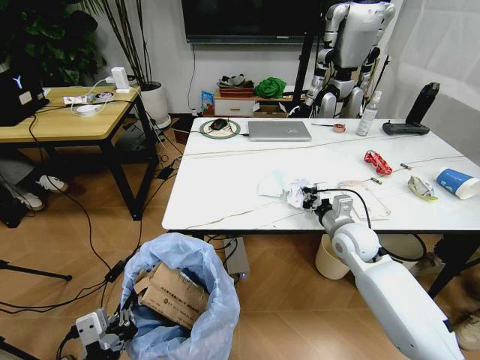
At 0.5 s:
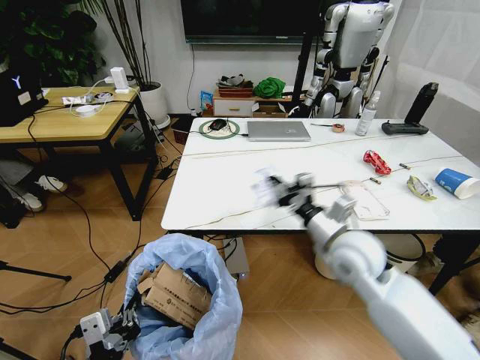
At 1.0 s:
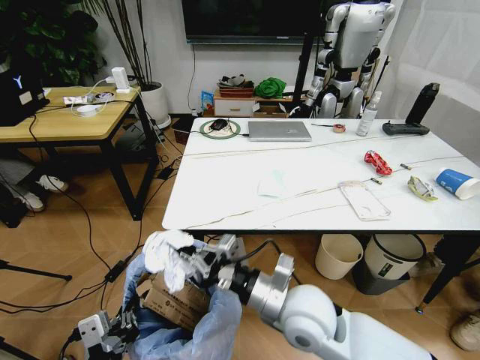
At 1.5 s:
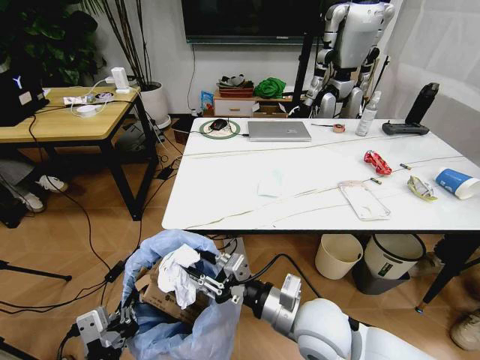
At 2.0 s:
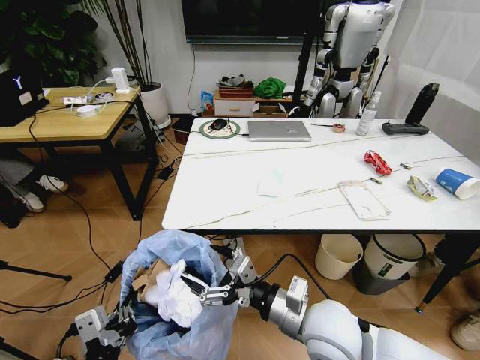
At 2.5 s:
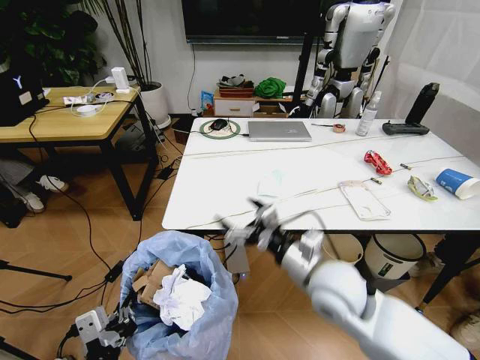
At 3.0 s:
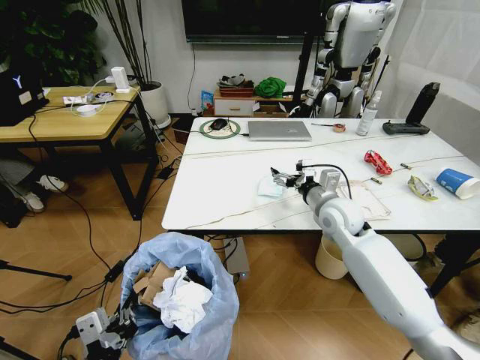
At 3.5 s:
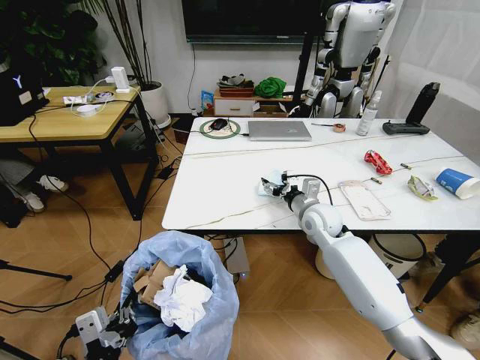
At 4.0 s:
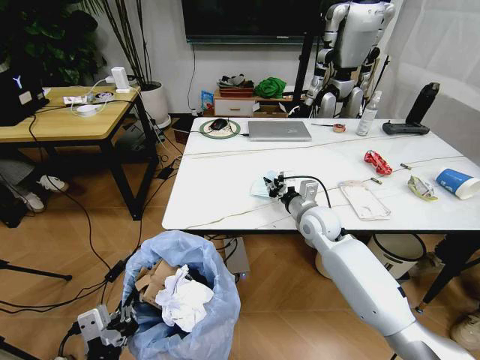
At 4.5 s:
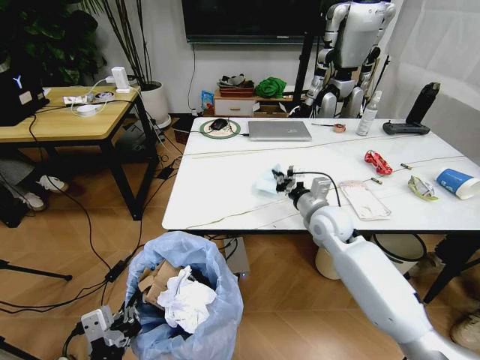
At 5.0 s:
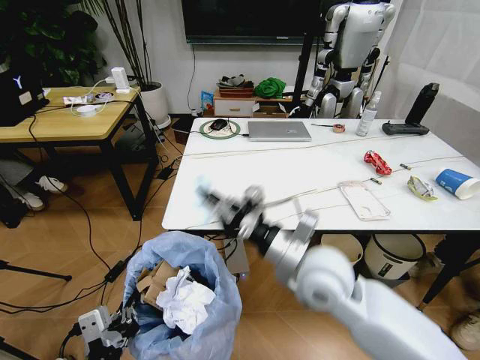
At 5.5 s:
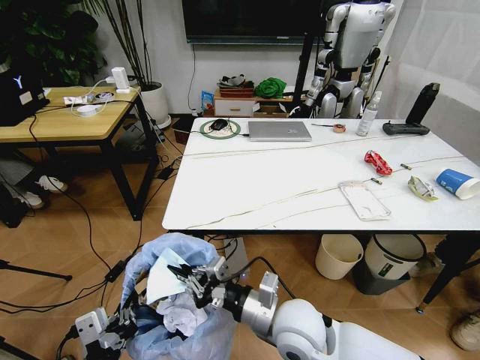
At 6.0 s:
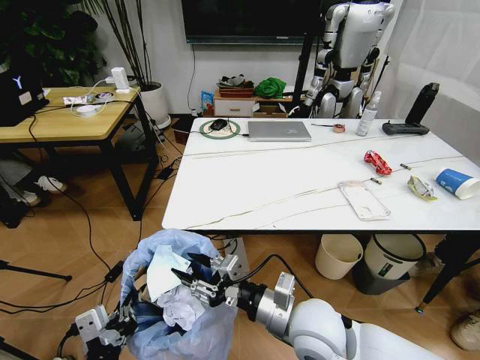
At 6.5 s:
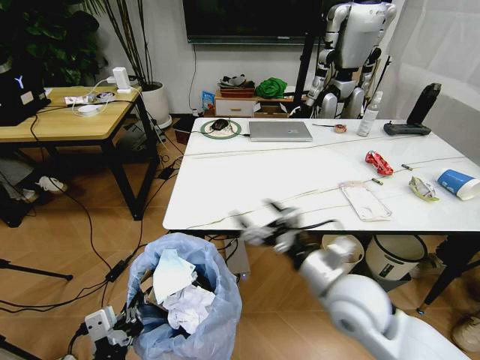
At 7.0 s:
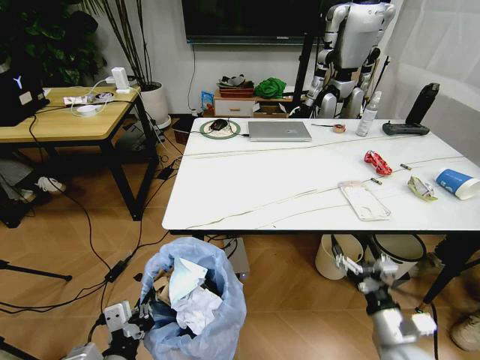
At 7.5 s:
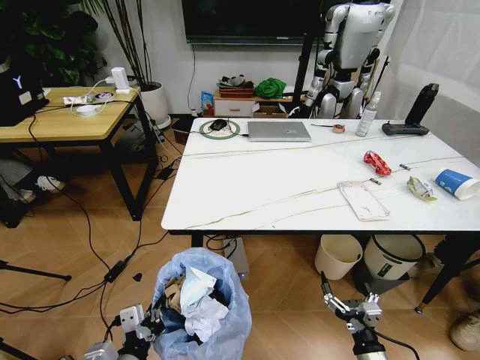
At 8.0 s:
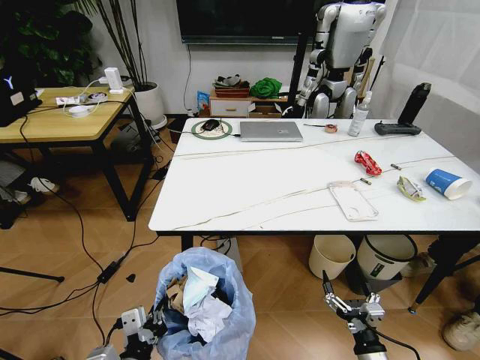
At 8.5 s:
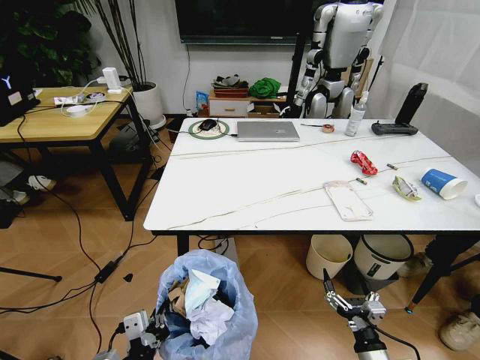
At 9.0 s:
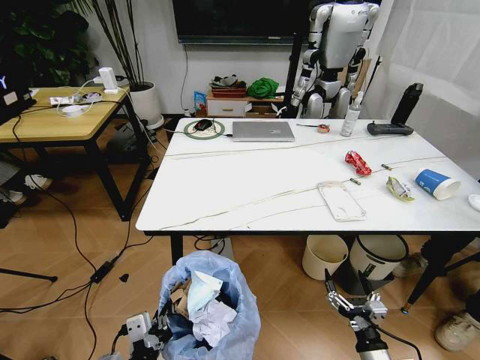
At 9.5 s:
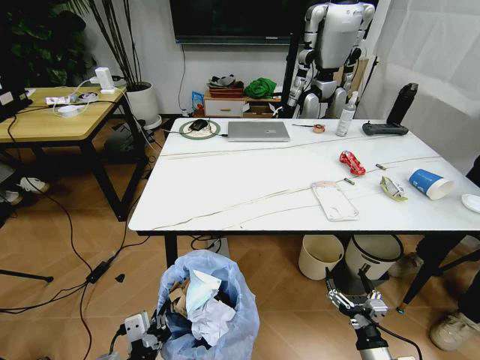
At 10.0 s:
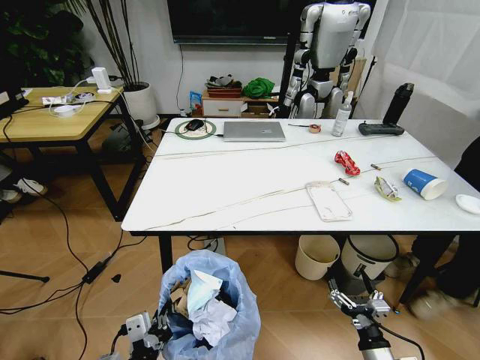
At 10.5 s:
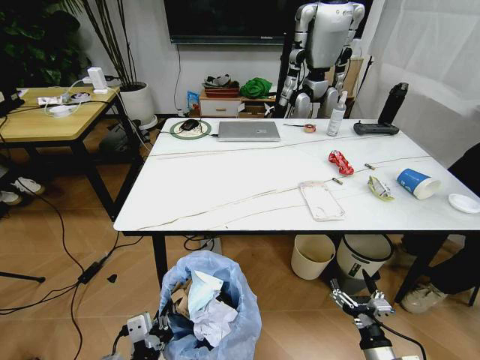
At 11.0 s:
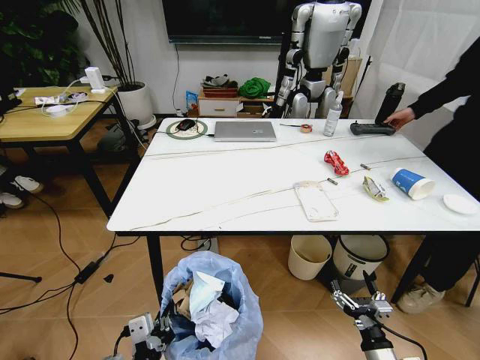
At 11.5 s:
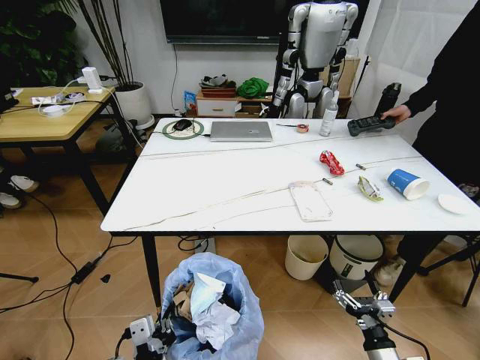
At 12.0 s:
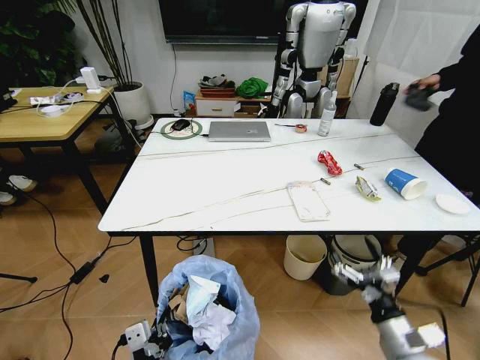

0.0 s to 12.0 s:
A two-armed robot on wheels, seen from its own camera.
Task of the whole recording: Pick up the trash bin and place the trash from the table into it.
0.0 to 2.0 s: The right gripper travels backward and to the left by some 25 cm, and opens up.
2.0 to 4.0 s: The right gripper goes some 25 cm forward, and closes its fingers.
4.0 to 6.0 s: The right gripper travels backward by roughly 25 cm.
6.0 to 8.0 s: The left gripper travels downward by roughly 10 cm. Meanwhile the right gripper moves downward, to the right and backward, approximately 25 cm, and opens up.
10.0 to 12.0 s: The right gripper moves upward, approximately 10 cm.

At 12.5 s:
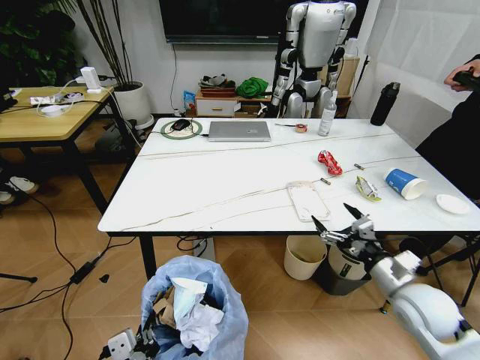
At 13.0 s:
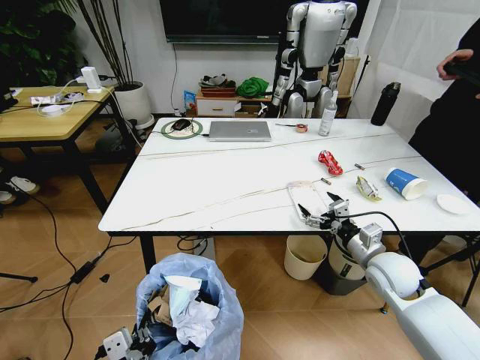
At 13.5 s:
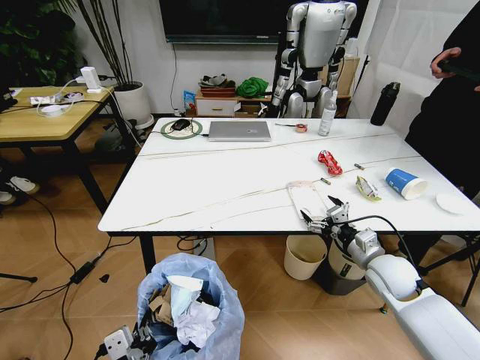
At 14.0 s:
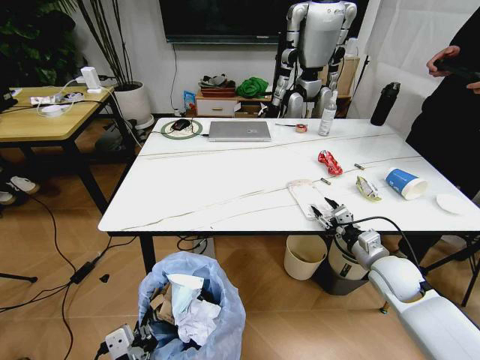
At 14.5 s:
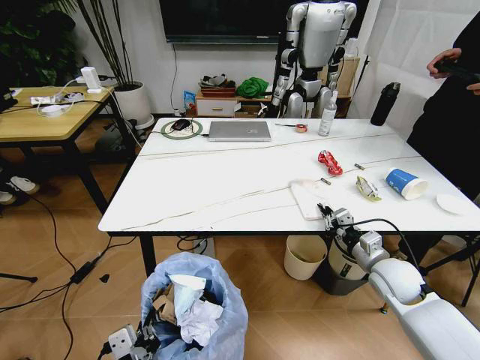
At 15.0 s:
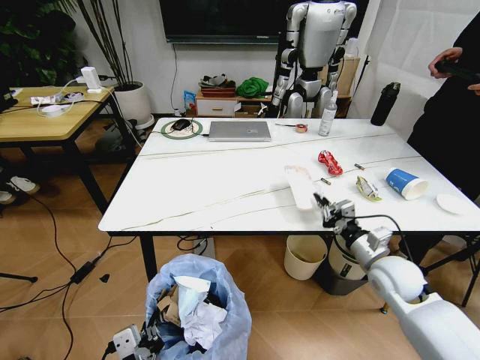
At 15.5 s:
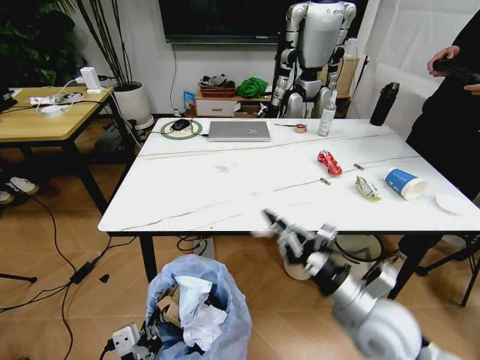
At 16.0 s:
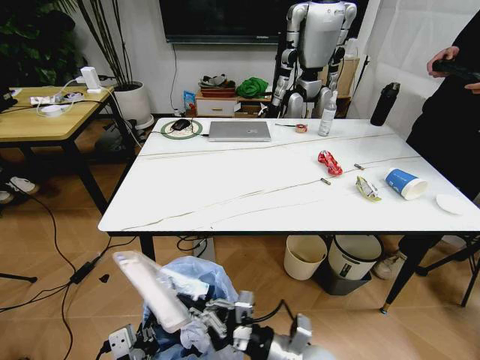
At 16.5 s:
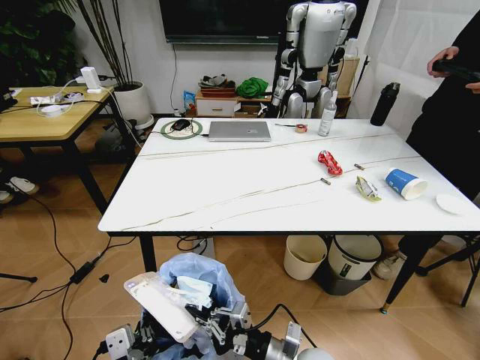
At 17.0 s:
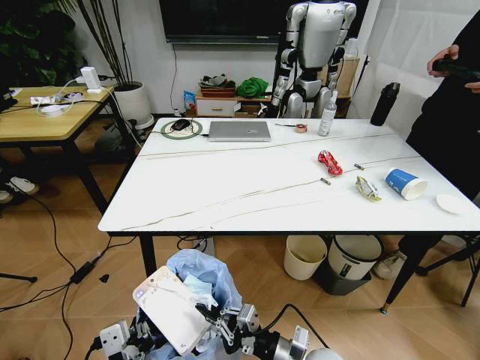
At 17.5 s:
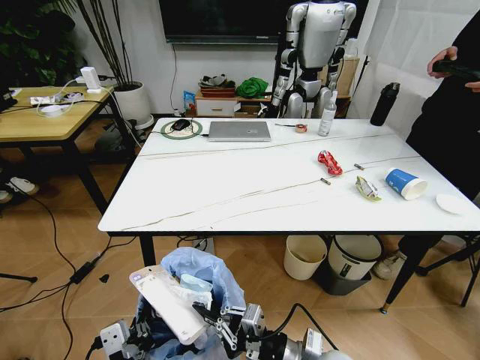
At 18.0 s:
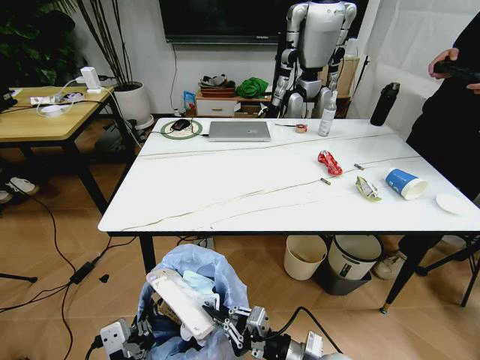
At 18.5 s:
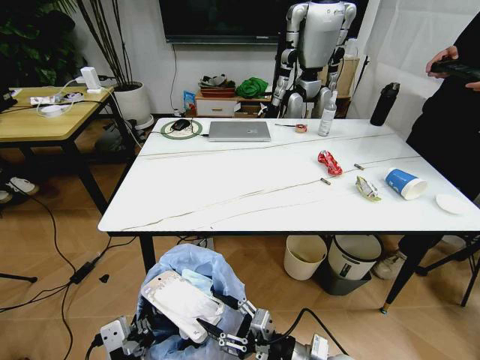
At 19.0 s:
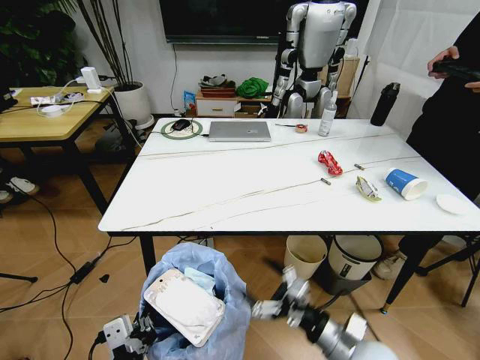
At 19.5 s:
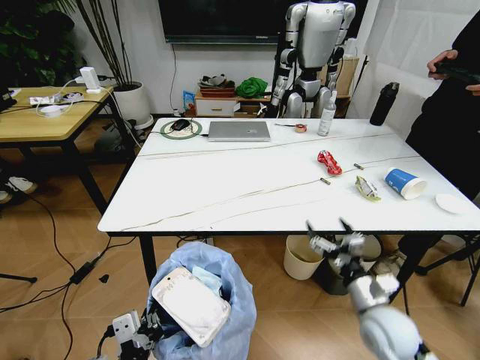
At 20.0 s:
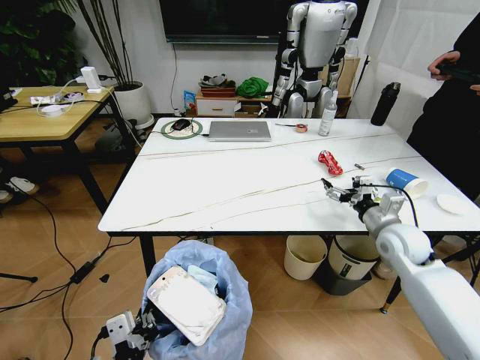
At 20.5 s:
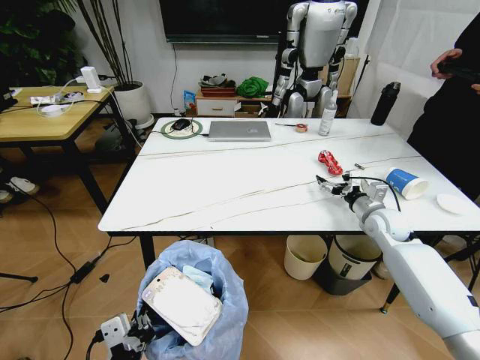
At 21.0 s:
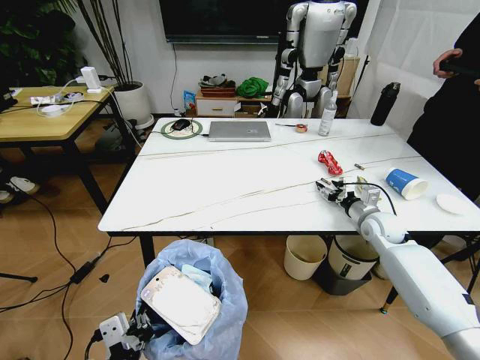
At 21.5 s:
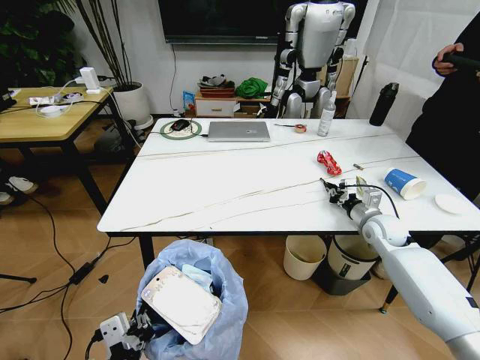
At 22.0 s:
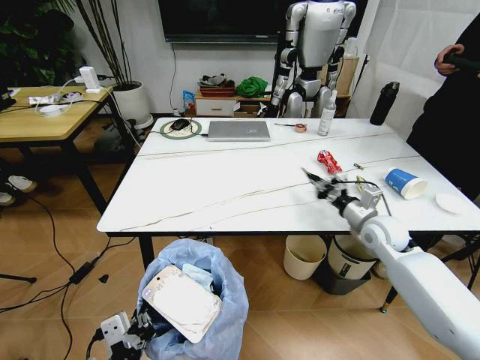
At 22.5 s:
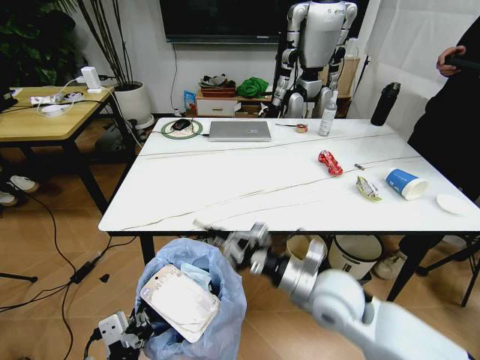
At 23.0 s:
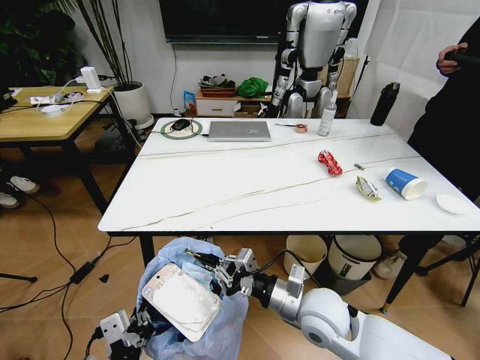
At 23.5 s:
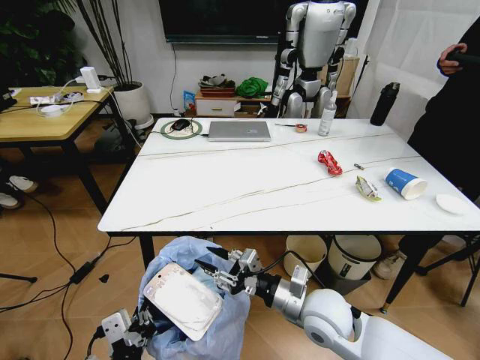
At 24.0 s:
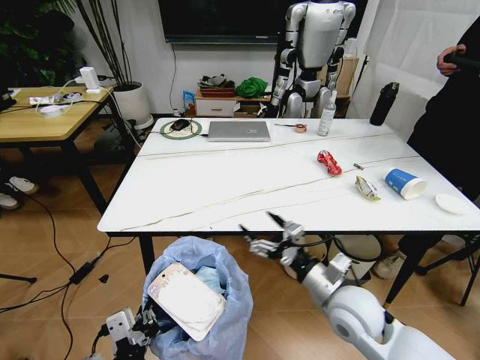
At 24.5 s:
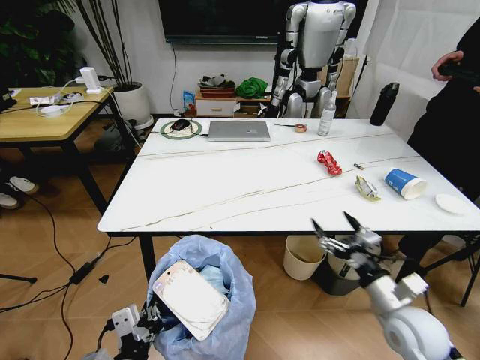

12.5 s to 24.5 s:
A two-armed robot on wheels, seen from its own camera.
Task of the whole recording: Pick up the trash bin and place the trash from the table into it.
12.5 to 14.5 s: The right gripper moves forward, approximately 10 cm, and closes its fingers.
14.5 to 16.5 s: The right gripper travels to the left and backward by approximately 25 cm.
16.5 to 18.5 s: The right gripper opens.
18.5 to 20.5 s: The right gripper shifts about 40 cm forward and to the right, and opens its fingers.
20.5 to 22.5 s: The right gripper travels to the left and backward by some 30 cm, and closes.
22.5 to 24.5 s: The right gripper moves to the right and downward, roughly 20 cm, and opens.

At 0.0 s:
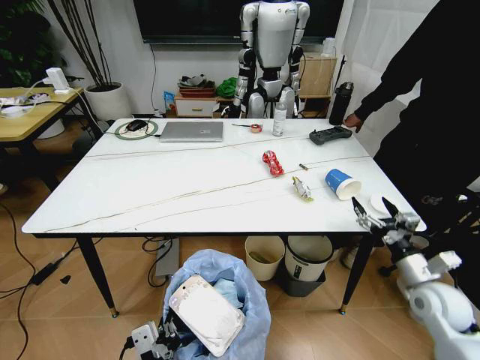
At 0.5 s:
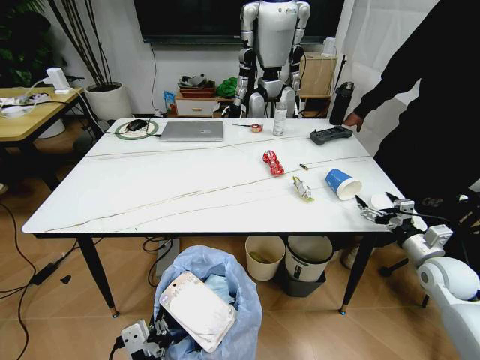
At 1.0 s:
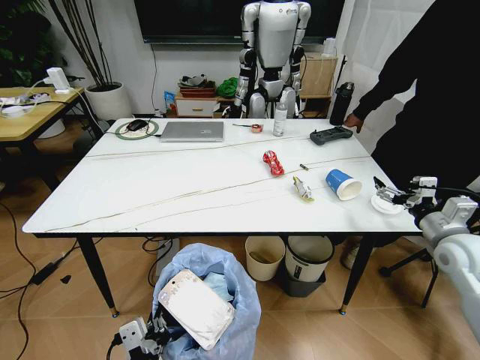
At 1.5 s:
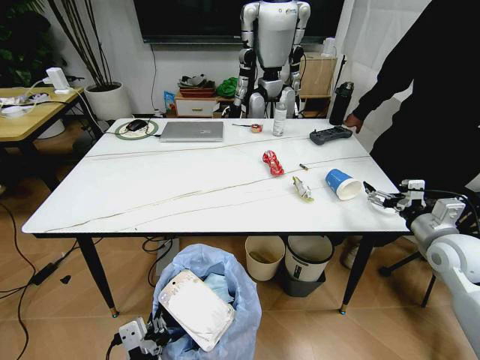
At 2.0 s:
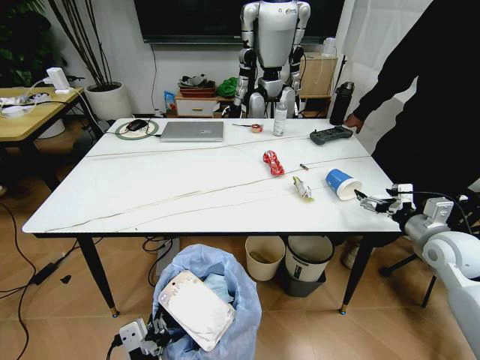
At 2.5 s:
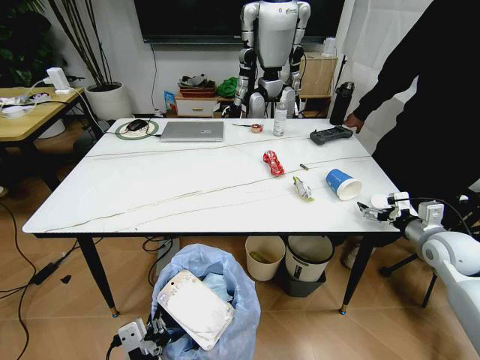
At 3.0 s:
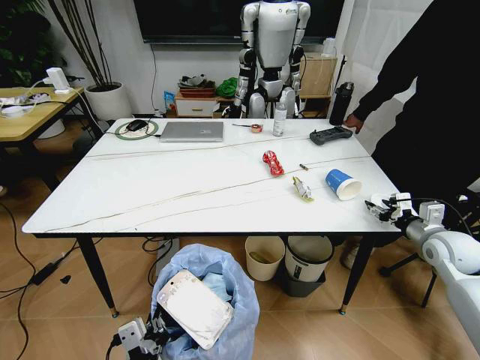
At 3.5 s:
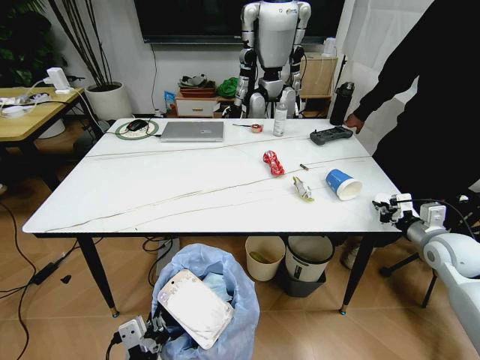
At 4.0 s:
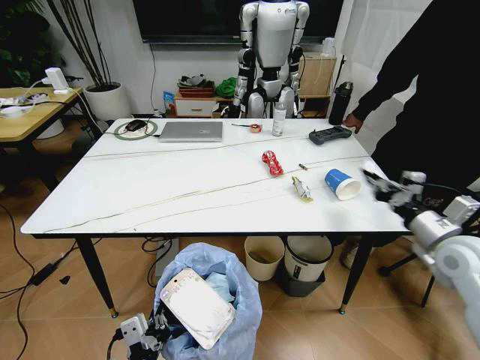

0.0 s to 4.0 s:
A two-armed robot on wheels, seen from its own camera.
Task of the whole recording: Pick up the trash bin and place the trash from the table into it.
0.0 to 2.0 s: The right gripper travels upward and forward by about 10 cm.
2.0 to 4.0 s: The right gripper closes its fingers.
